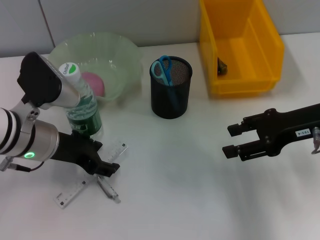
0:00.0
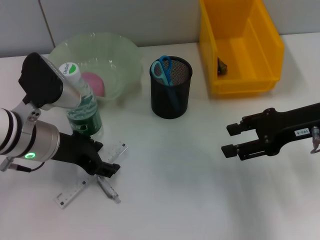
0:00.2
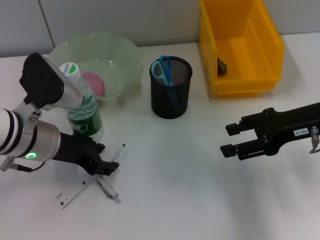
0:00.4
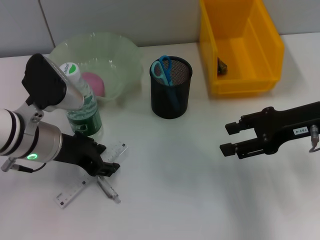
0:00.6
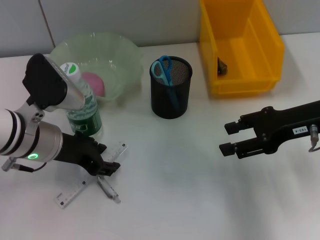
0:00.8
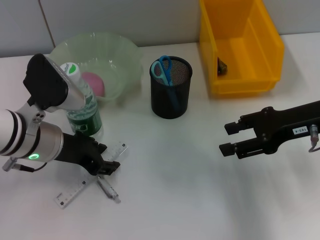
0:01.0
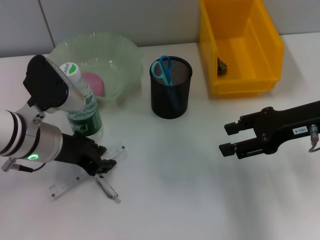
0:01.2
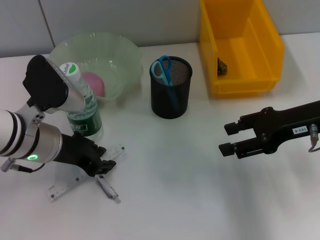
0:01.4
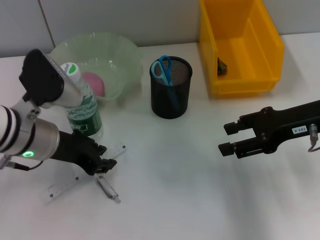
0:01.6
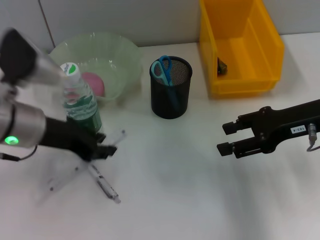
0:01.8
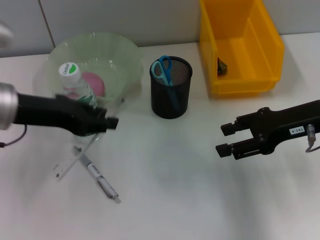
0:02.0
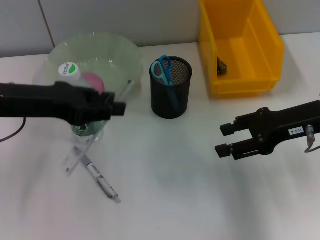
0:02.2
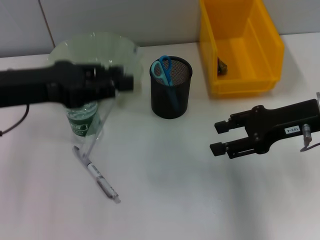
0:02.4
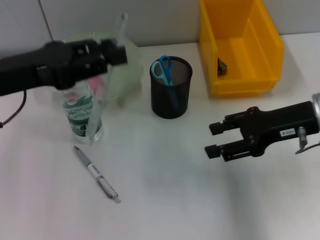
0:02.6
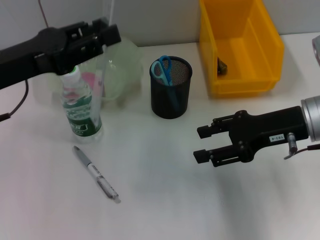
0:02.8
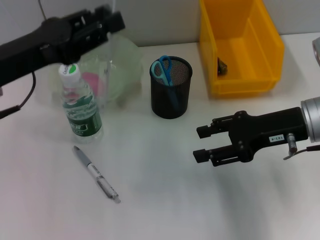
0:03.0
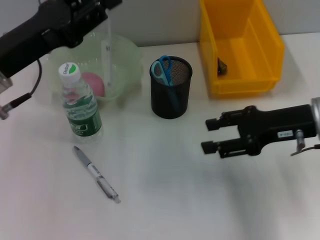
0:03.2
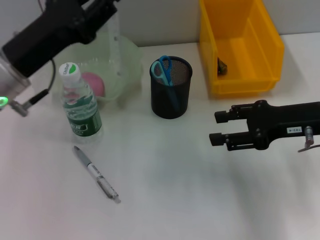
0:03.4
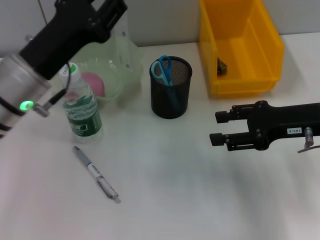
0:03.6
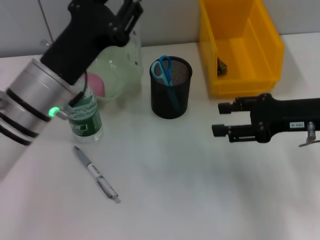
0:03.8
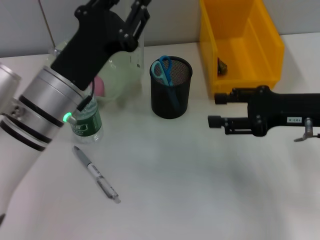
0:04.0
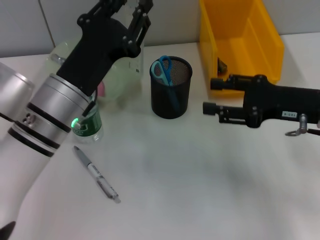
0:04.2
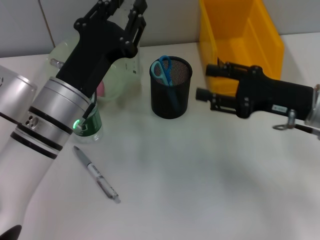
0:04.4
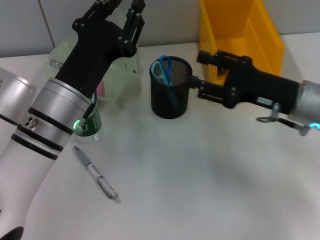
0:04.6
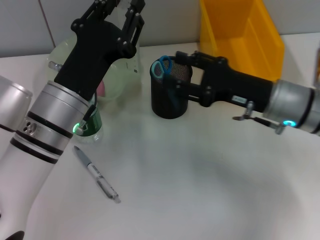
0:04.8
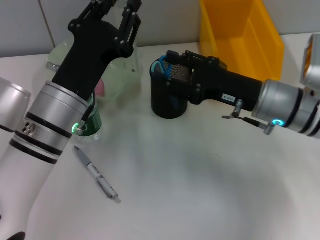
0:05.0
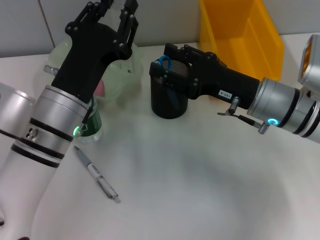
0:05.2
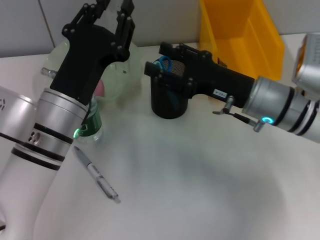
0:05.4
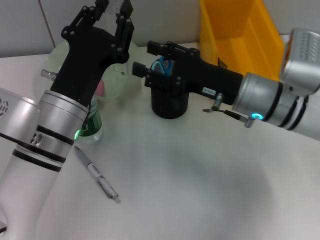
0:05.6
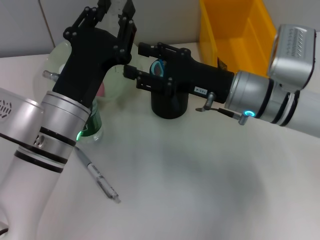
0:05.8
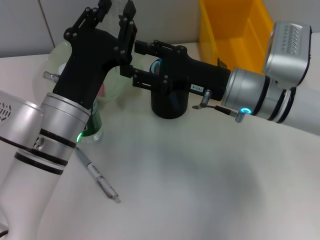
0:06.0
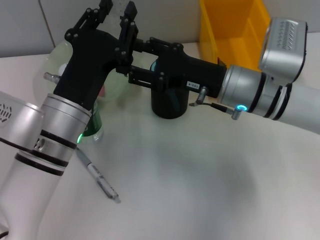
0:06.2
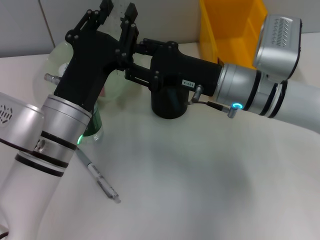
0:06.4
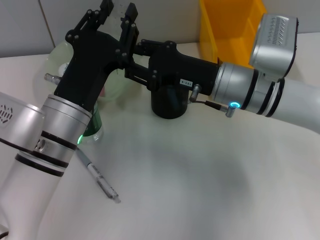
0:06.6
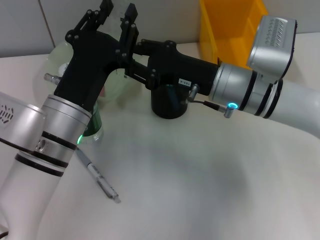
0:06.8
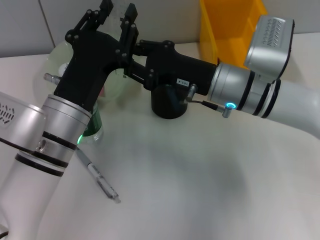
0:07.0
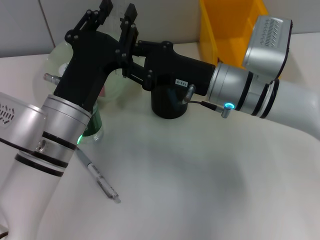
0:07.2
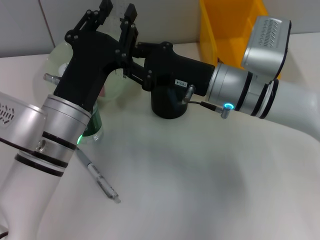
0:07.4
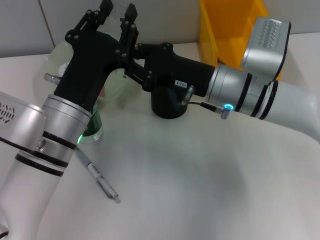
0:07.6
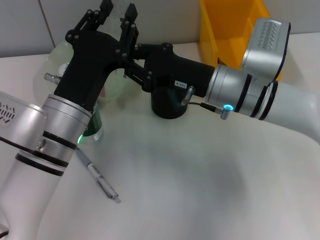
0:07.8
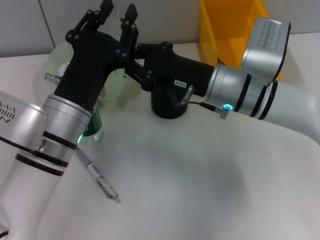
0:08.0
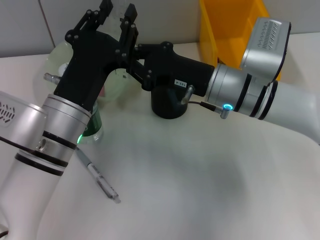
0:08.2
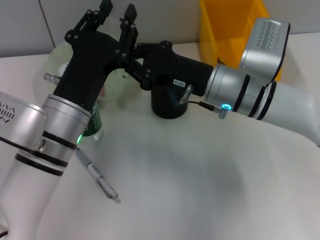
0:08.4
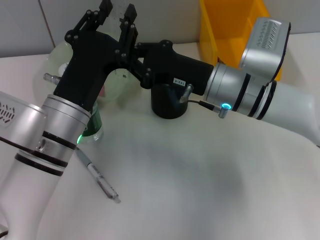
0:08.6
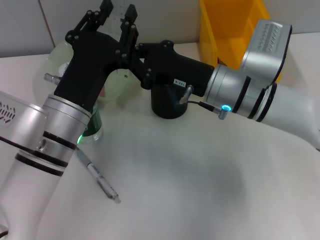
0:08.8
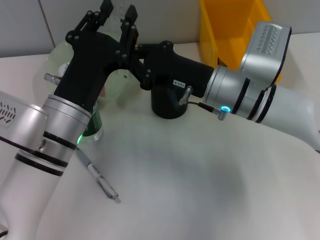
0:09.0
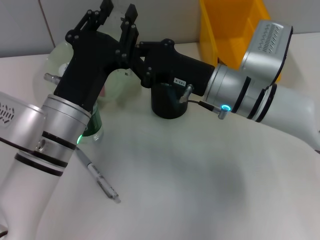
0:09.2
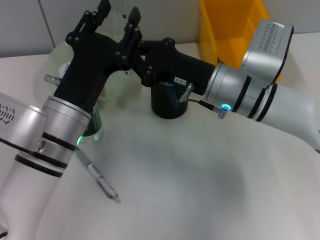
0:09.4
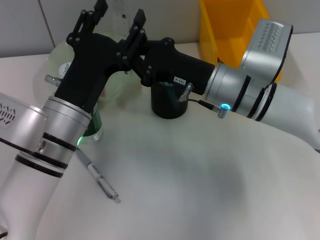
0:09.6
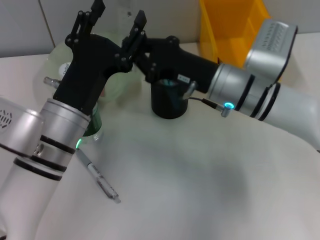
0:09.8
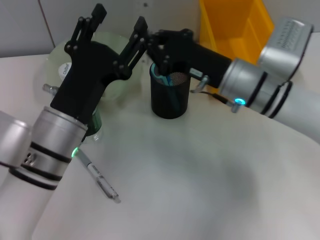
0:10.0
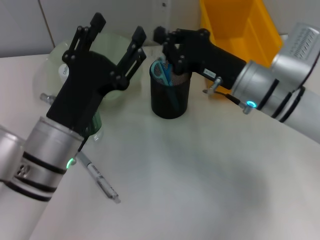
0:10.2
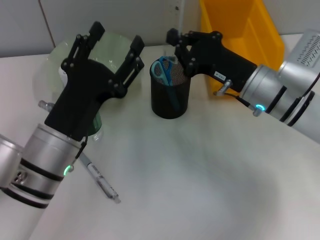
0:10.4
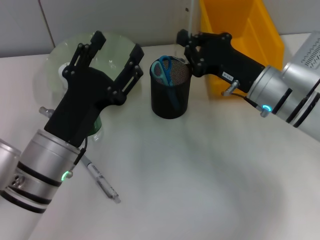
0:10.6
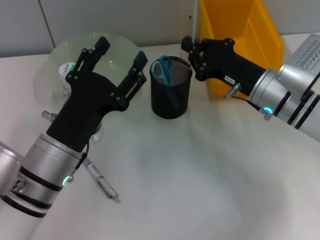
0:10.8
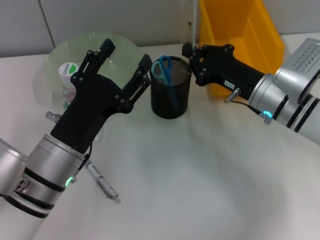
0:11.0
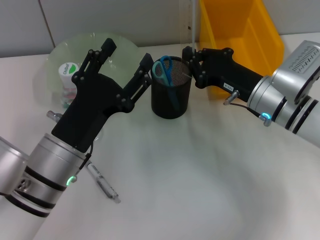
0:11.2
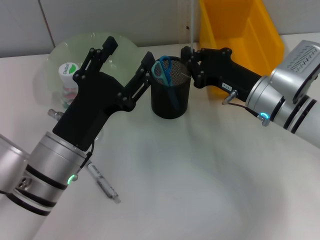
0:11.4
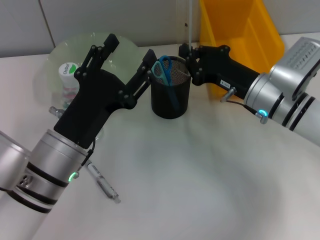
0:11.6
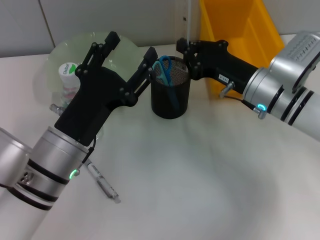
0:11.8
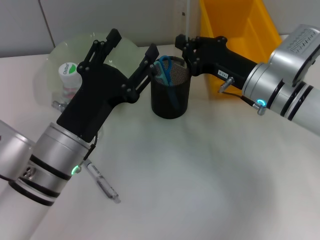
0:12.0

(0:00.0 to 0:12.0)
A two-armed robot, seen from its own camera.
Step, 0:01.4 - 0:09.6: Pass the ruler from the left hand to the right hand.
0:00.0 - 0:01.6: The left gripper closes up.
0:01.6 - 0:03.0: The left gripper heads upward, covering approximately 5 cm.
0:03.0 - 0:04.4: The left gripper moves to the right and downward, roughly 10 cm.
0:04.4 - 0:06.0: The right gripper travels to the left by roughly 10 cm.
0:06.0 - 0:07.6: The right gripper closes up.
0:07.6 - 0:09.0: The two grippers keep their place.
0:09.0 - 0:10.4: The left gripper opens its fingers. The right gripper shifts approximately 5 cm to the right.
0:10.4 - 0:12.0: The grippers make only small movements.

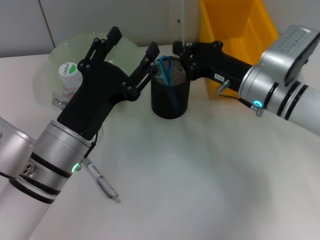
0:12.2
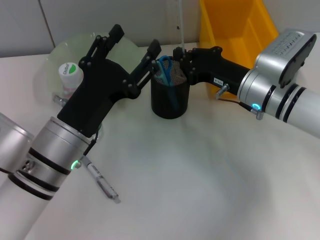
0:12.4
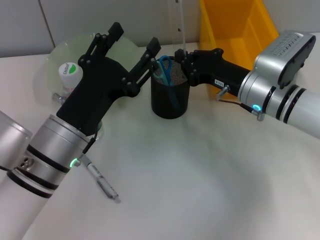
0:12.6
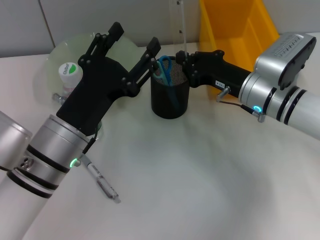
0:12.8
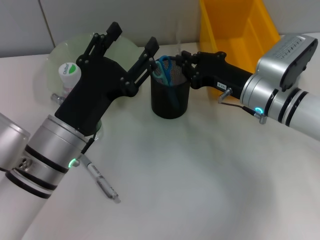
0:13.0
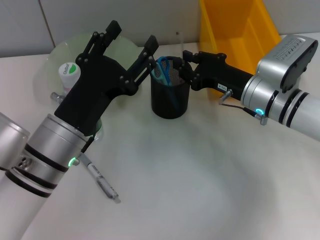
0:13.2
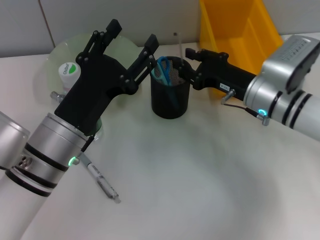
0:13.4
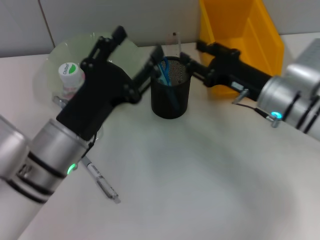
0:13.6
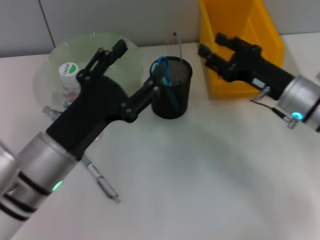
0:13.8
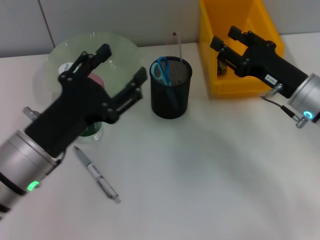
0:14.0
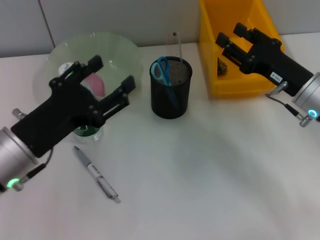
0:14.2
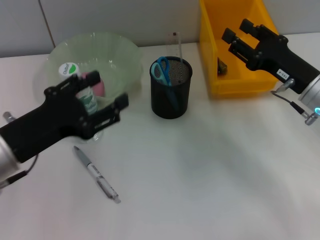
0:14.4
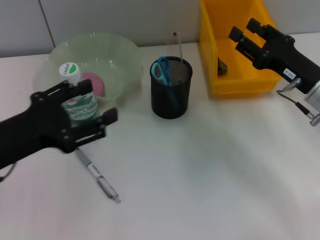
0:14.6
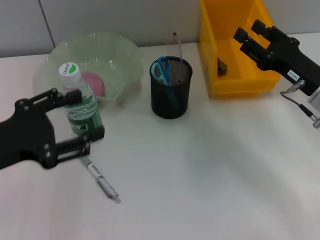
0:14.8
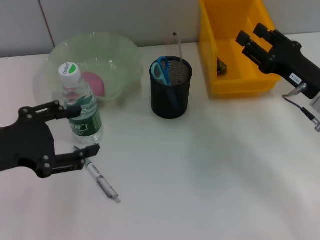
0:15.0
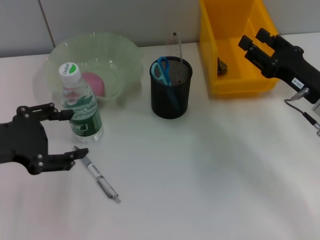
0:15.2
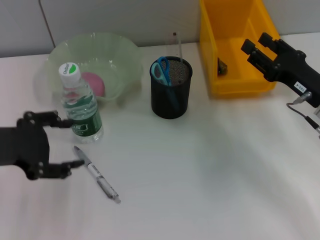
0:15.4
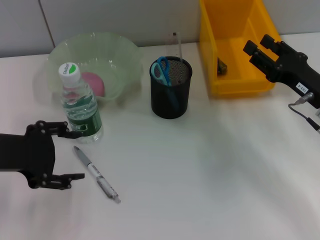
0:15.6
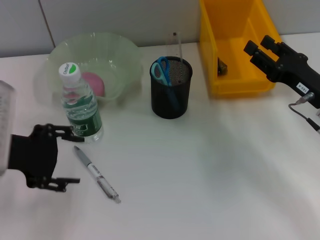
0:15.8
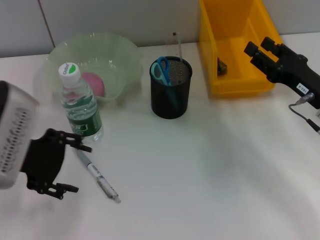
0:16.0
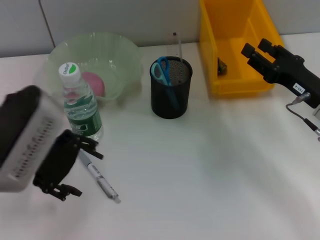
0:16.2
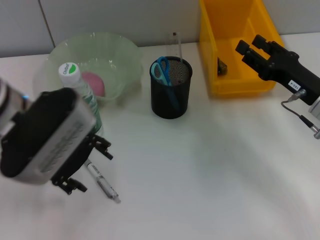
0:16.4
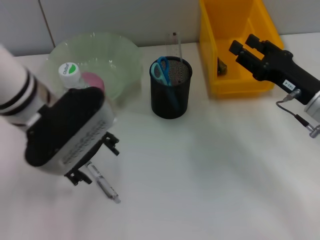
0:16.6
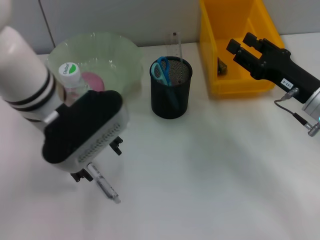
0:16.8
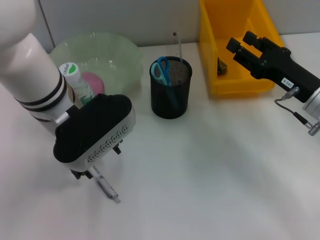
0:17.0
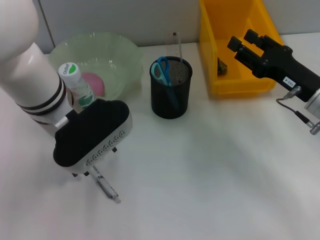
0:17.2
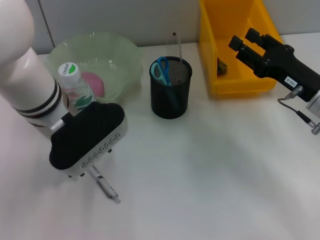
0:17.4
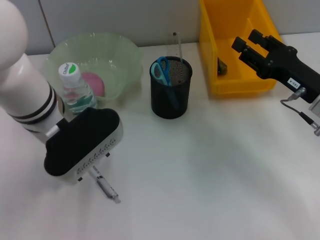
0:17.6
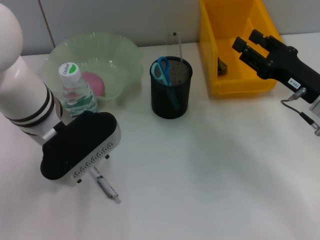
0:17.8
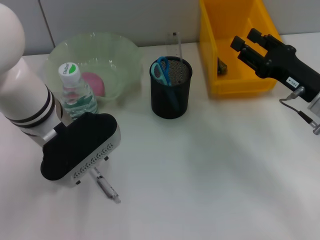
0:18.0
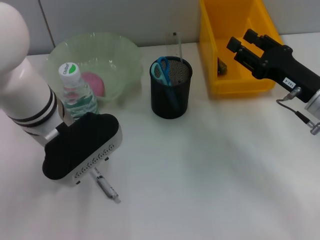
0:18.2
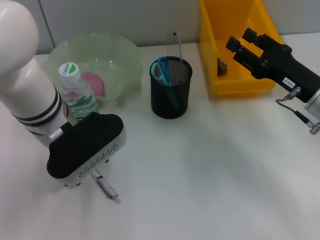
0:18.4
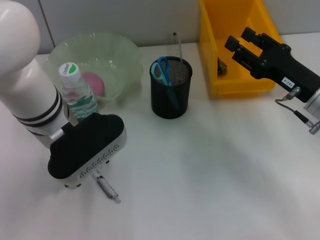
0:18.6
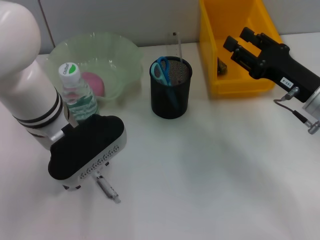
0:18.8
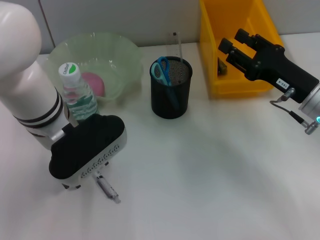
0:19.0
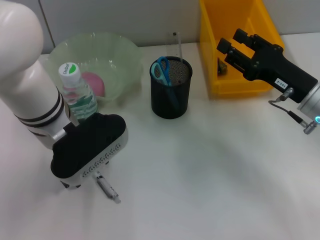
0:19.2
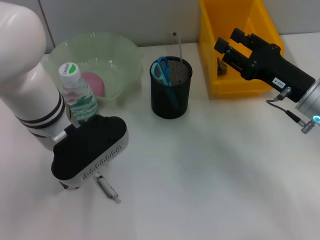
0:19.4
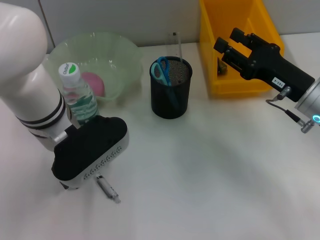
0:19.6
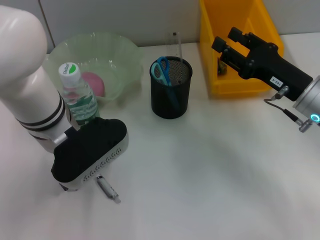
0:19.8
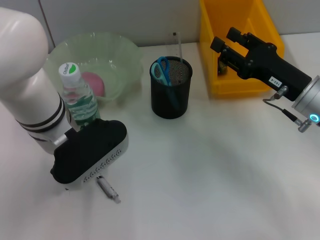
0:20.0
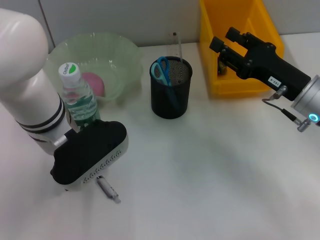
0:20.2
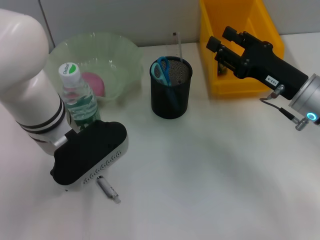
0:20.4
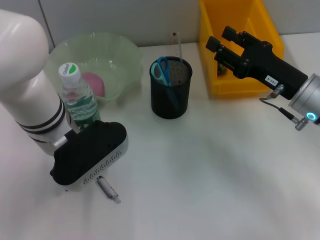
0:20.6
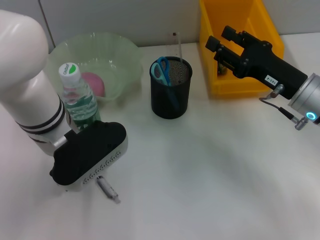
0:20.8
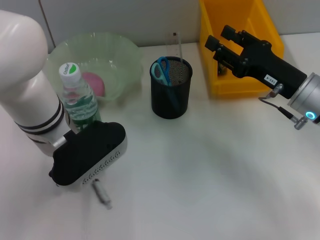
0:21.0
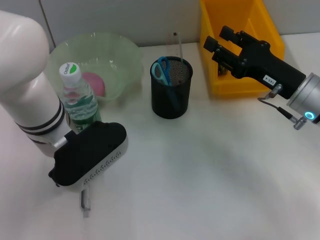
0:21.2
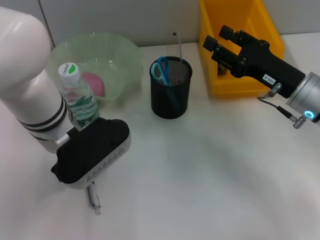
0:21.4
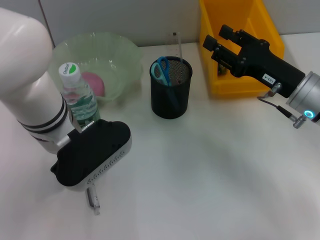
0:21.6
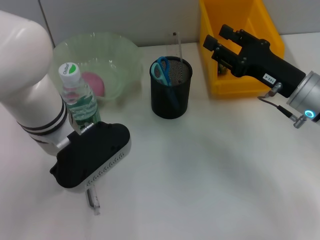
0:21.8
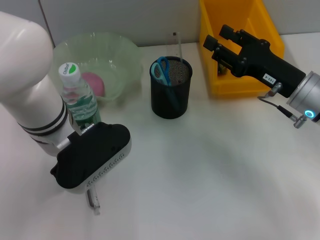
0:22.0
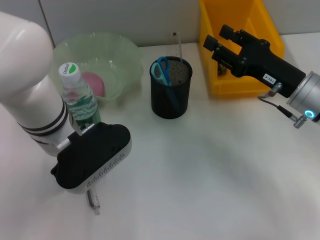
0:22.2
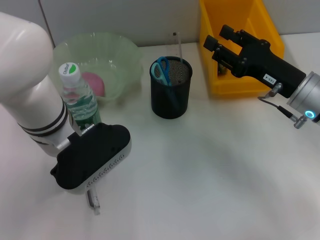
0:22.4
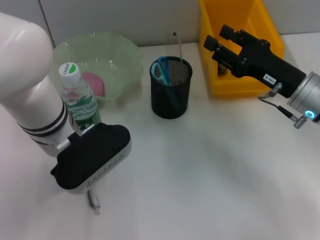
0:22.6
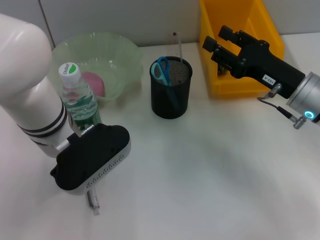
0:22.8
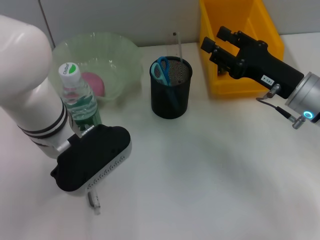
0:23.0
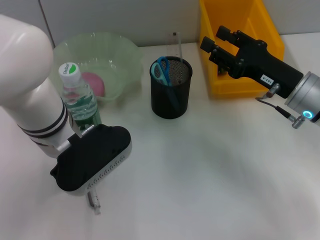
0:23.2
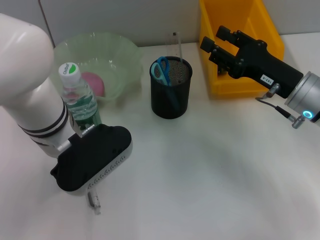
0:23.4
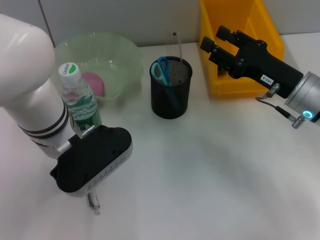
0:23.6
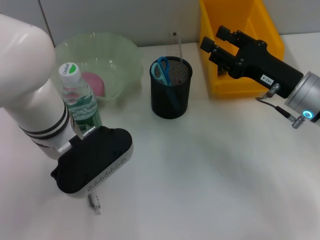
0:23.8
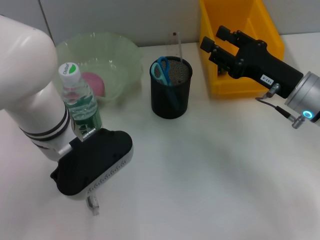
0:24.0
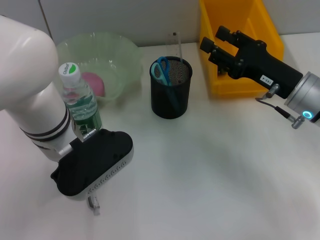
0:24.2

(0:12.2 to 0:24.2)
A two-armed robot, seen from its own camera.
0:12.2 - 0:13.8: The right gripper heads to the right, covering some 5 cm, and opens its fingers.
0:13.8 - 0:15.2: The left gripper heads to the left and upward, covering roughly 15 cm.
0:15.2 - 0:16.6: The left gripper moves to the right and forward, approximately 15 cm.
0:16.6 - 0:19.8: There are only small adjustments of the grippers.
0:19.8 - 0:21.2: The left gripper closes up.
0:21.2 - 0:24.2: Both grippers stay put.
